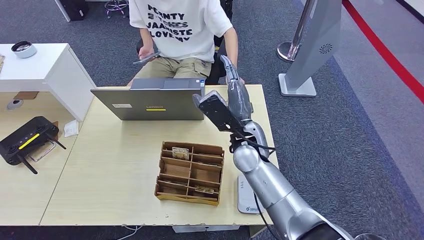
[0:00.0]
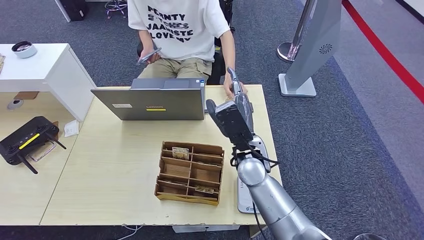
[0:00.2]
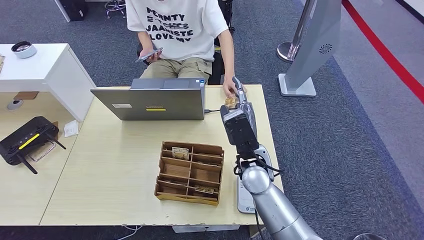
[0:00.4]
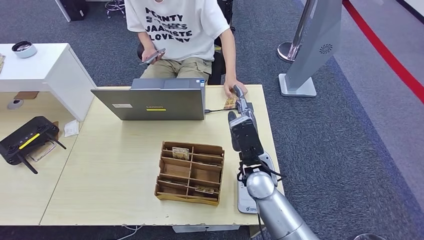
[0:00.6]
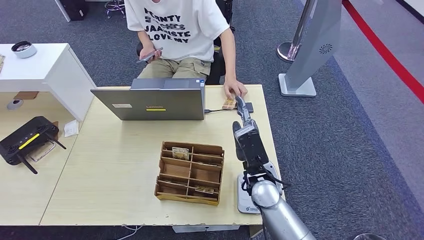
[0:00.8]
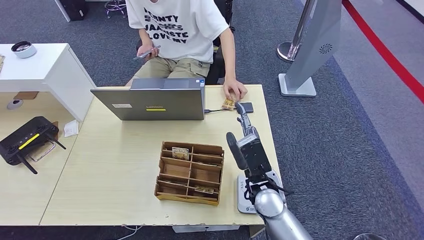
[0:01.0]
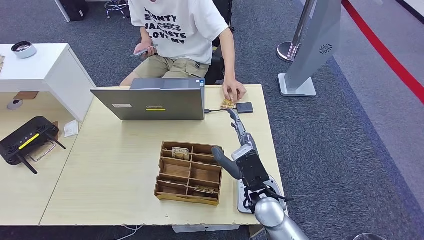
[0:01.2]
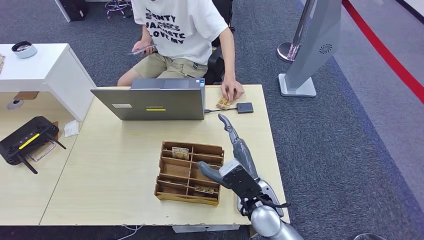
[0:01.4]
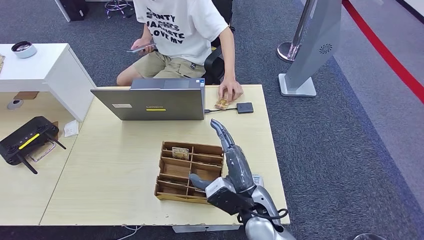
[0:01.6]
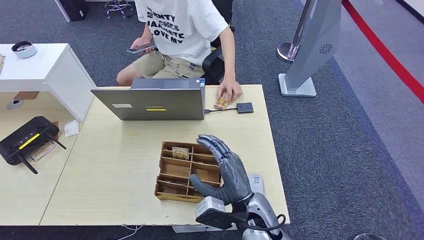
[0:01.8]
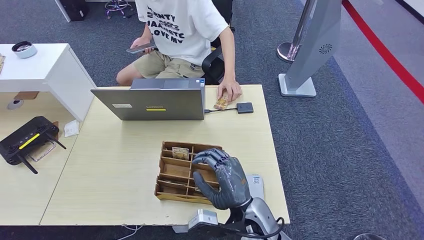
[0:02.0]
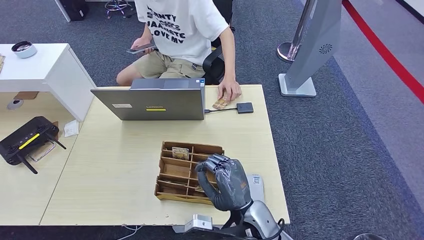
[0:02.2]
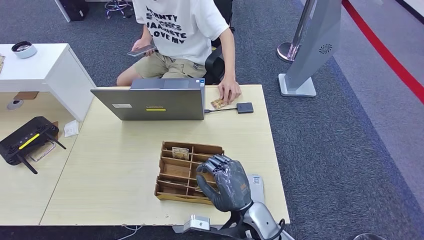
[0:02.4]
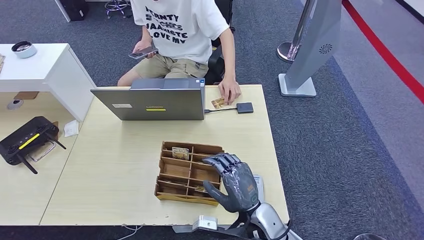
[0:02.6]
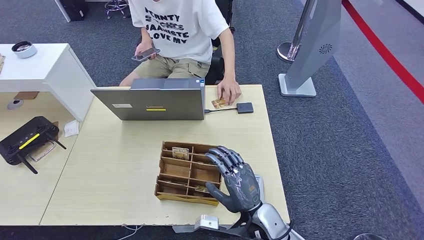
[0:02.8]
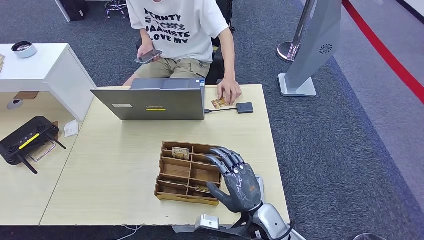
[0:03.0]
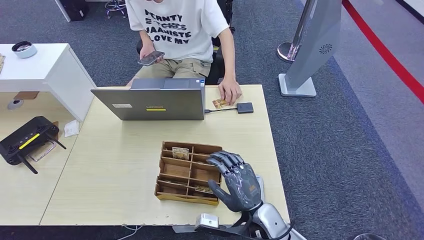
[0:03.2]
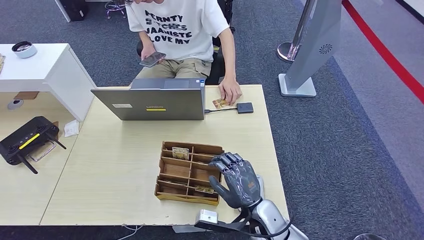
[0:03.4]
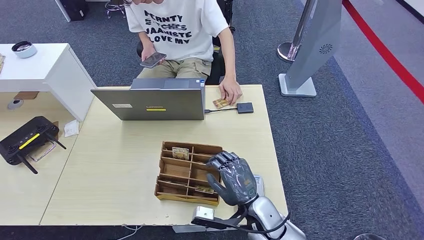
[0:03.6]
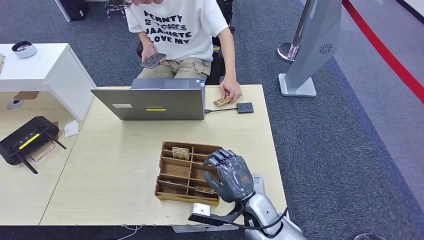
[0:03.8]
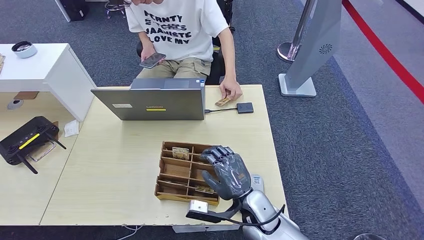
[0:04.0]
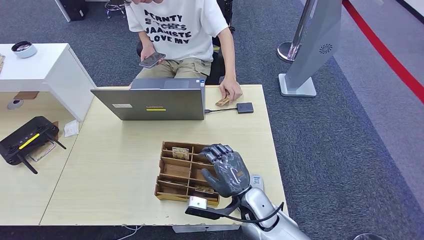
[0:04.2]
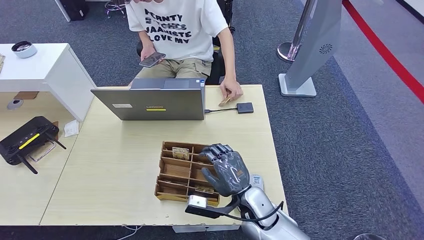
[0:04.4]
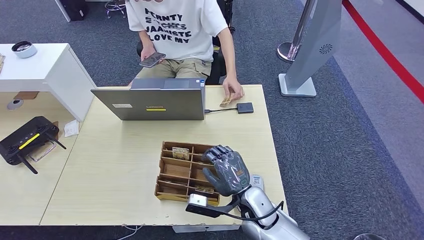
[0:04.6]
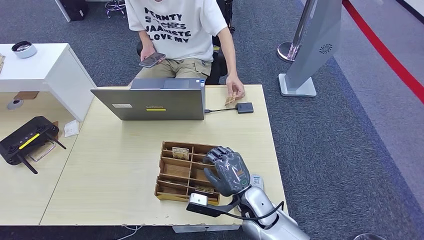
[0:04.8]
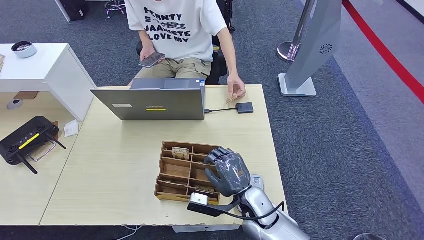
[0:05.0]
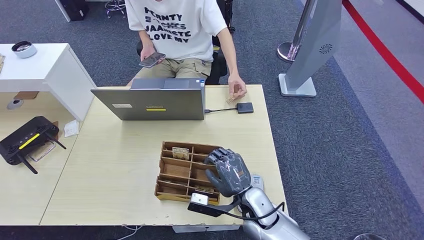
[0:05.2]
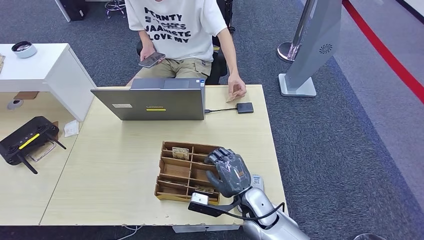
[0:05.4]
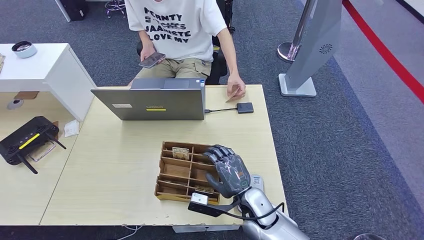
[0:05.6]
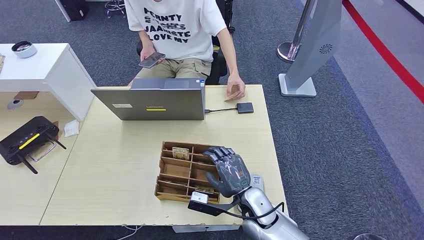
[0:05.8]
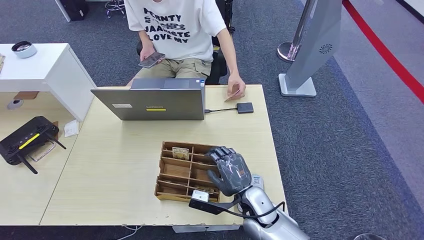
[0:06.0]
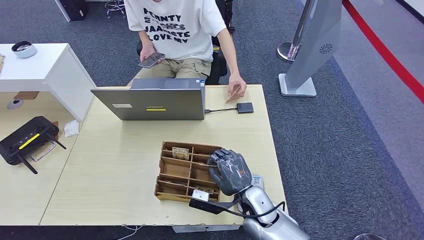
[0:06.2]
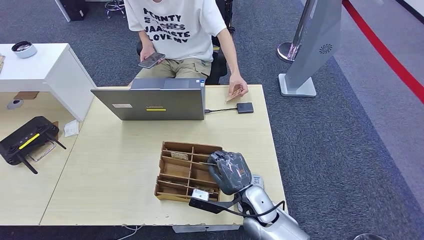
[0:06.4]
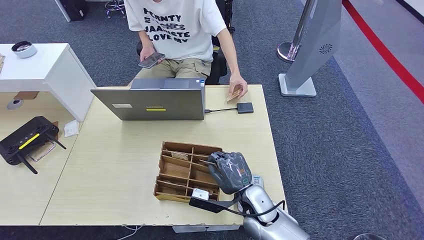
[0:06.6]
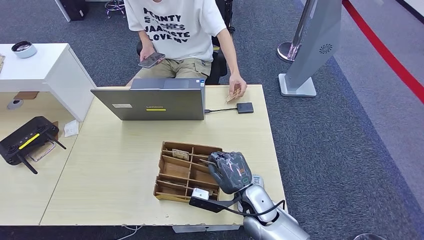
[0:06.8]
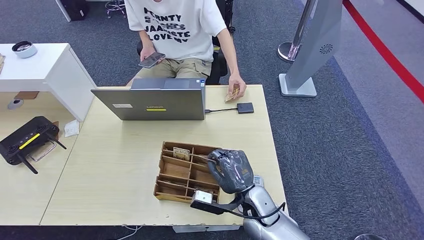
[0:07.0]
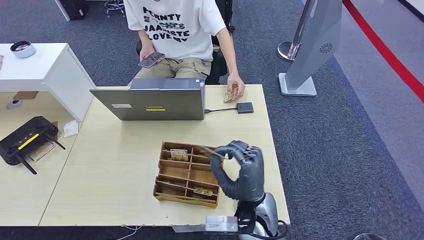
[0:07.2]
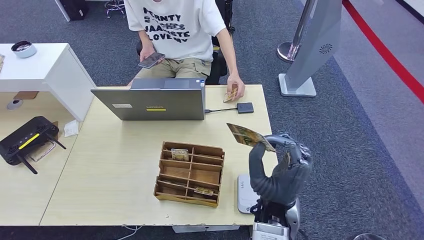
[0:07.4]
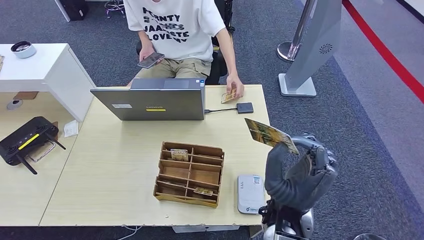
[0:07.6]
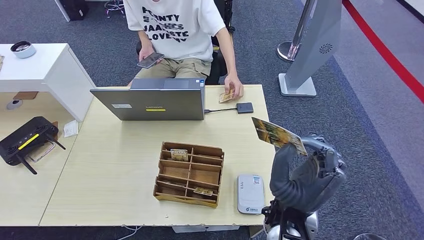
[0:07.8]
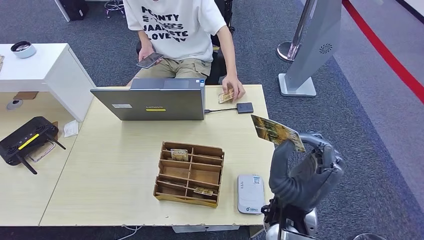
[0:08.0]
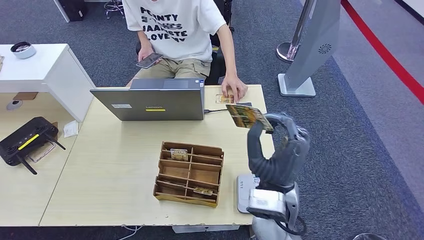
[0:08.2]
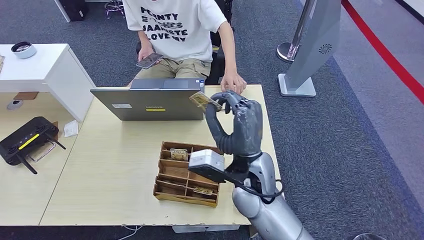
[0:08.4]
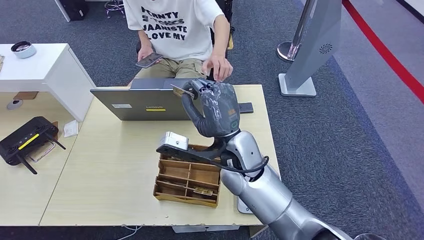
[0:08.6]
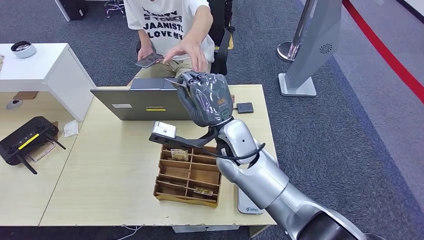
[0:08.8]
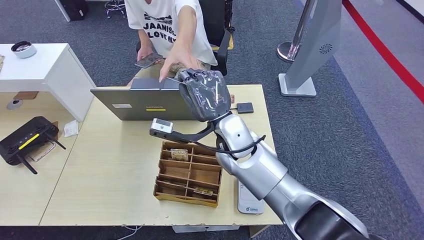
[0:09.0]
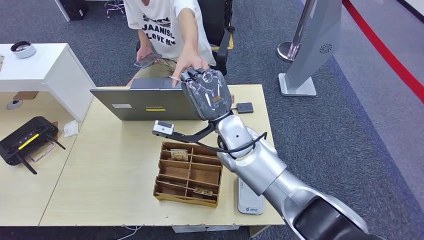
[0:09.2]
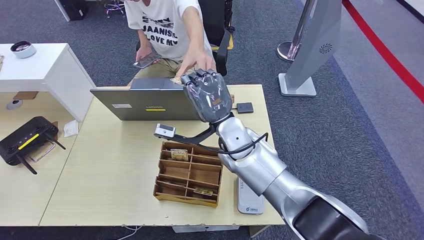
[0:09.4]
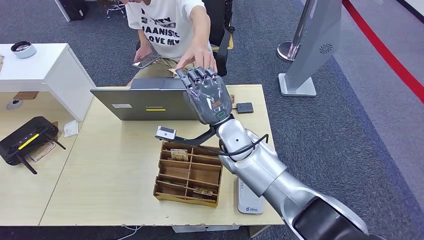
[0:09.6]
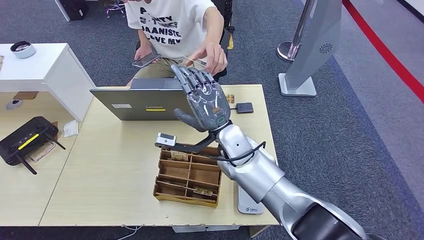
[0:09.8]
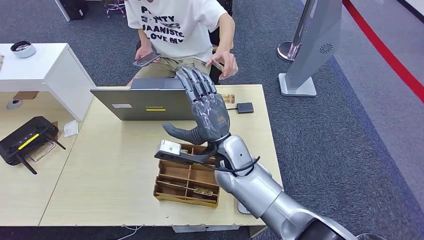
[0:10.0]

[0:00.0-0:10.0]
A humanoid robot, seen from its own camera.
Step, 0:00.8 to 0:07.0: Pick up the room key from the key card box.
Step, 0:07.2 to 0:10.0: Hand the room key to the person.
0:00.0 to 0:01.4: The right hand is displaced backward and downward by some 15 cm.
0:01.4 to 0:02.8: The right hand goes approximately 5 cm downward.
0:02.8 to 0:05.8: The hands stay close to where they were, moving slightly.
0:05.8 to 0:07.2: The right hand moves upward, about 5 cm.
0:07.2 to 0:08.6: The right hand is displaced upward and forward by some 15 cm.
0:08.6 to 0:10.0: The right hand ends up roughly 5 cm from where it was.
